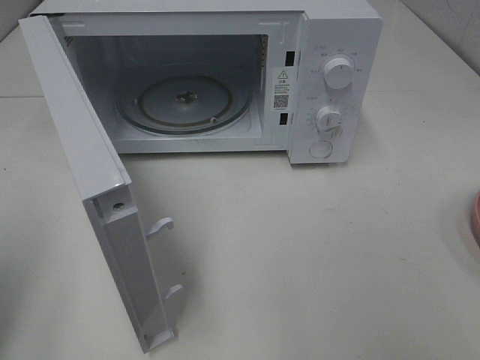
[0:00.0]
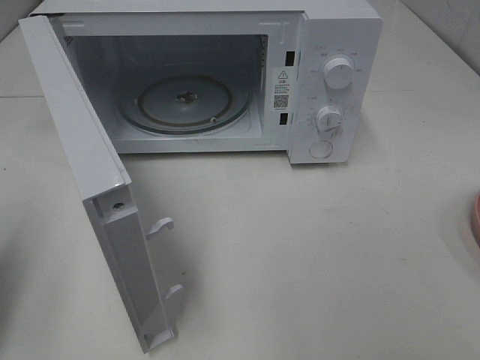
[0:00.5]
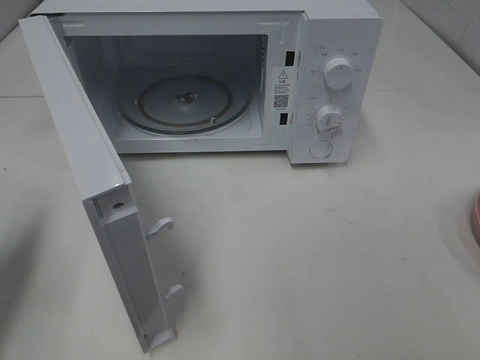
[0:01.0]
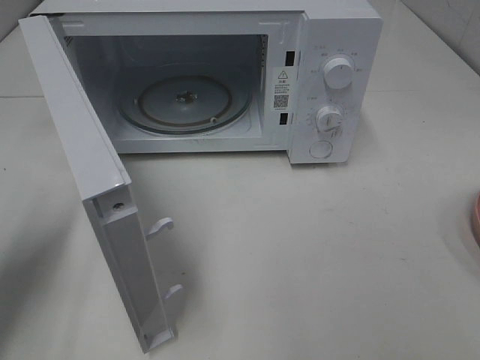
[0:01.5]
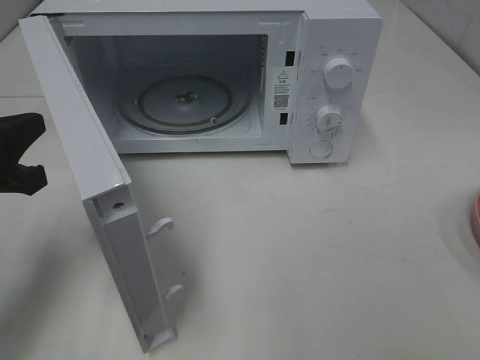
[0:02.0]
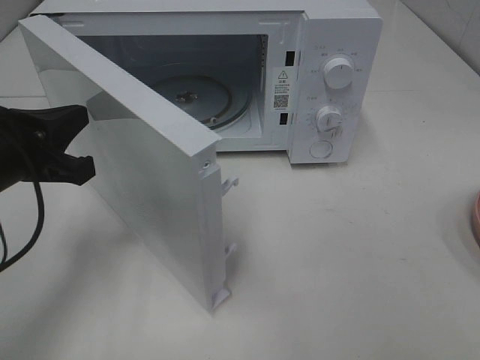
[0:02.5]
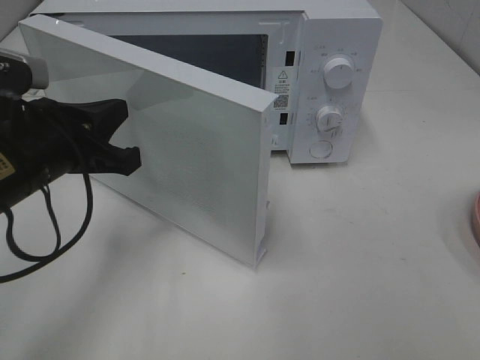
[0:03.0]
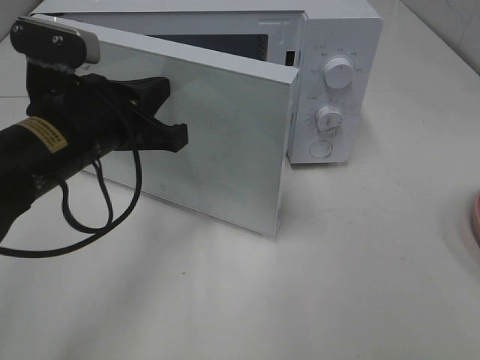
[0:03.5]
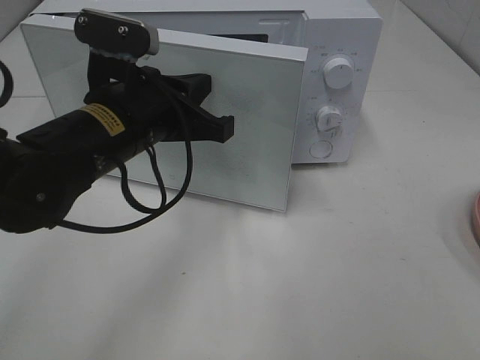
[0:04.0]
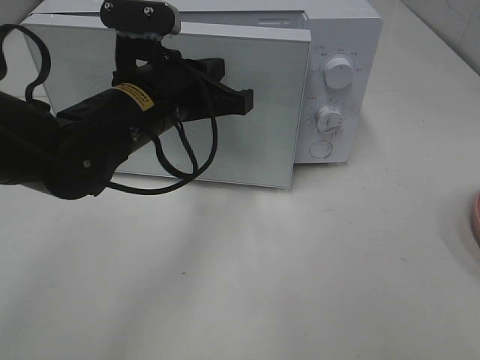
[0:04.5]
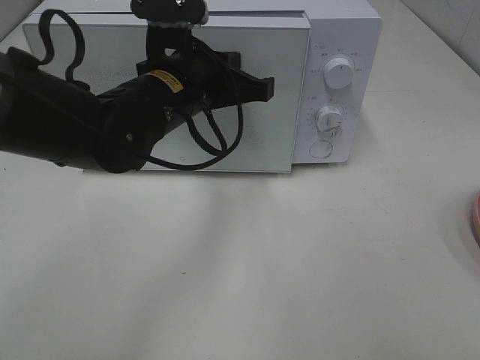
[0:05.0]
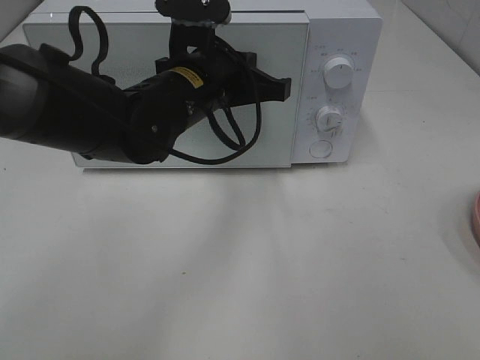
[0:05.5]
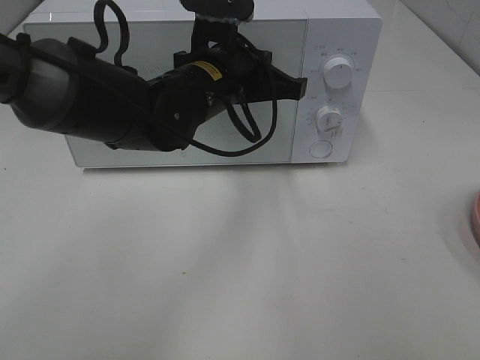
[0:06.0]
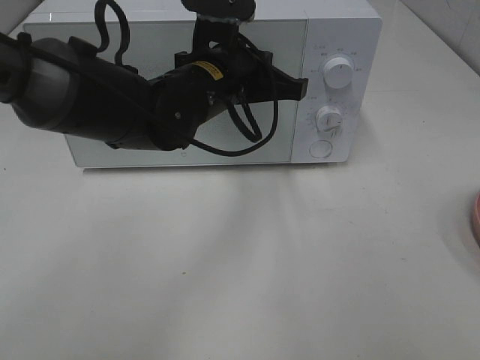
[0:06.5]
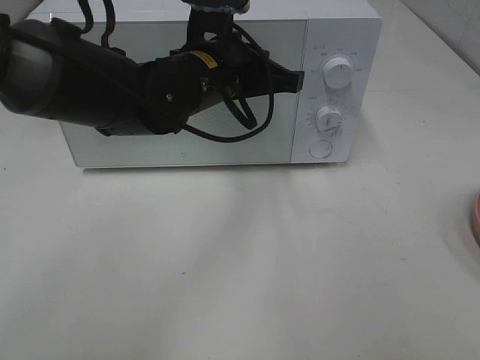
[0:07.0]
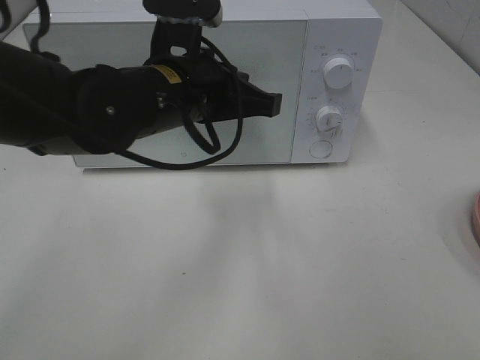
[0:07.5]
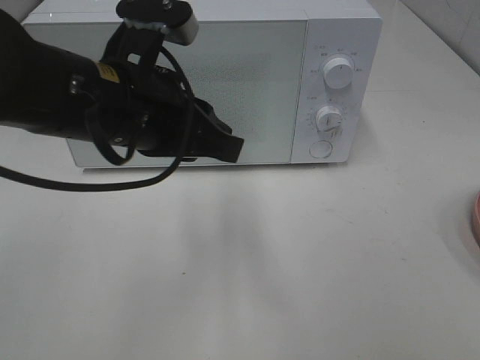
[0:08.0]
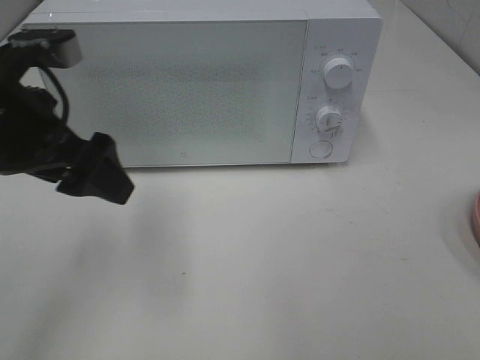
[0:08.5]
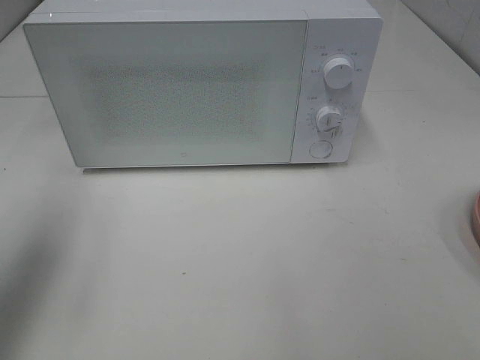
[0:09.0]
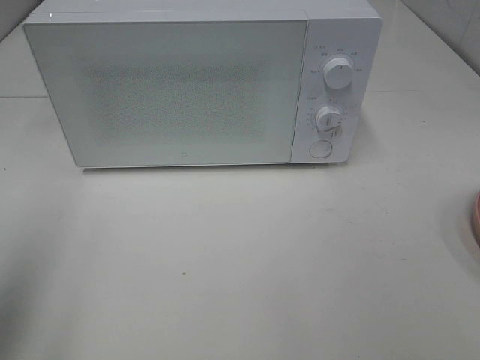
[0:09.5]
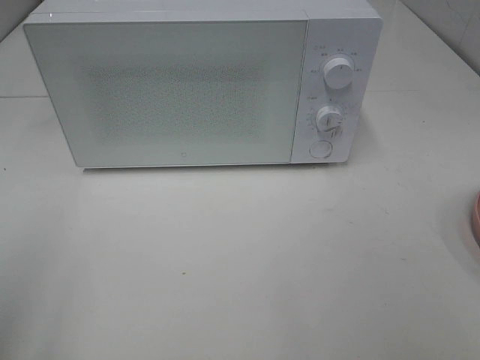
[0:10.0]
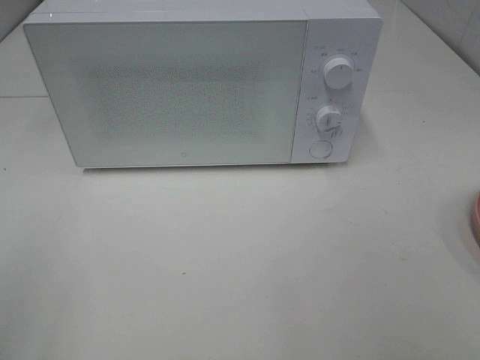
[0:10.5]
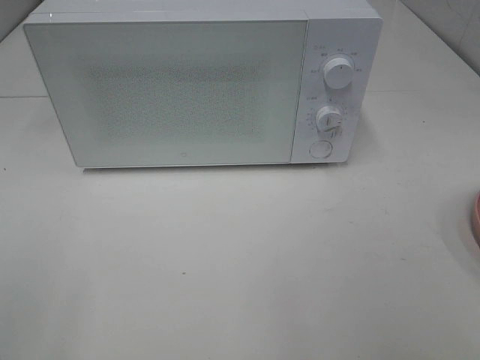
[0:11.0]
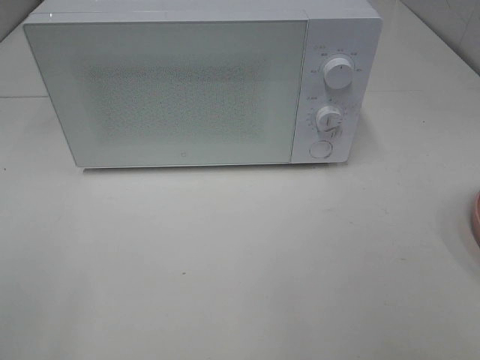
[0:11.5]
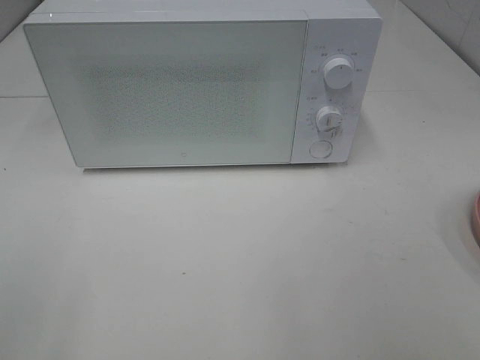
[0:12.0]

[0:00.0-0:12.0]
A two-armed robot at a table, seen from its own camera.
Task of the whole recording: Heat Sandwich.
Step, 0.0 to 7.0 s: Left hand: close the microwave door.
0.0 to 2.0 s: The left gripper is displaced forward, downward and to the right by approximately 15 cm.
2.0 to 4.0 s: The left gripper is displaced to the right by some 15 cm.
4.0 to 6.0 s: The left gripper shifts some 10 cm to the right and forward.
6.0 to 8.0 s: The left gripper heads backward and to the left, covering approximately 10 cm.
8.0 to 10.0 s: The left gripper travels to the left and backward by about 30 cm, and opens.

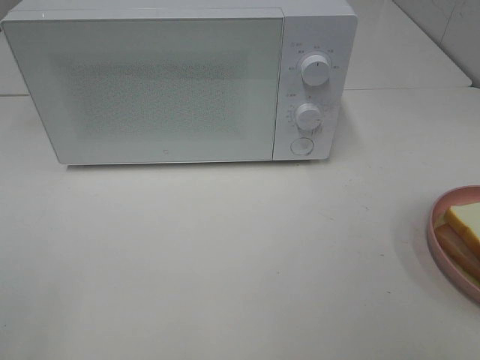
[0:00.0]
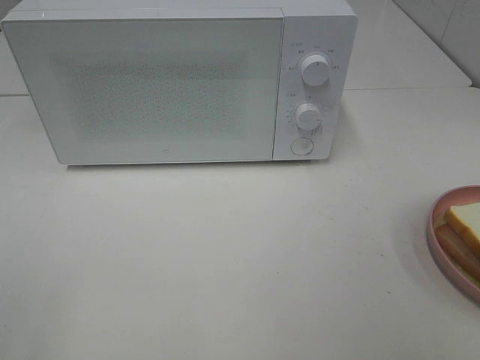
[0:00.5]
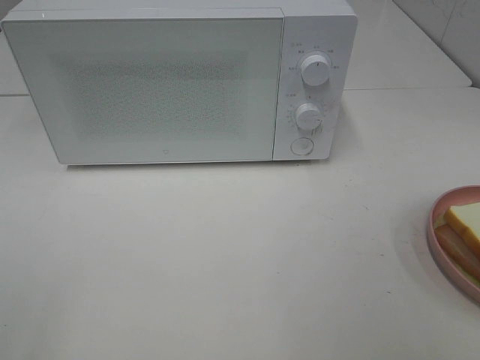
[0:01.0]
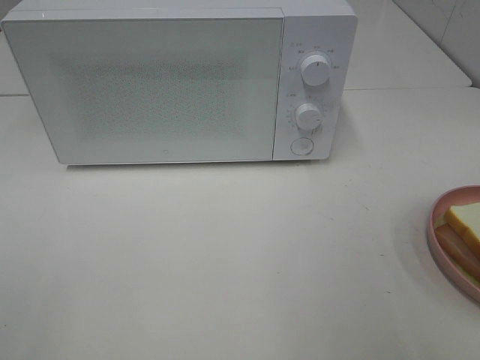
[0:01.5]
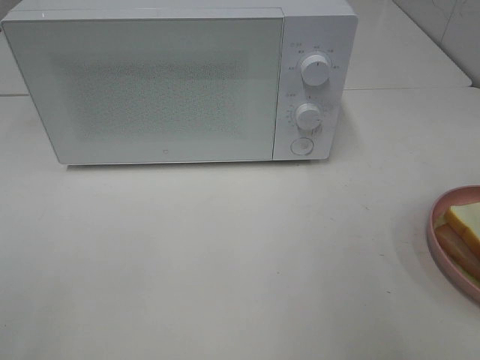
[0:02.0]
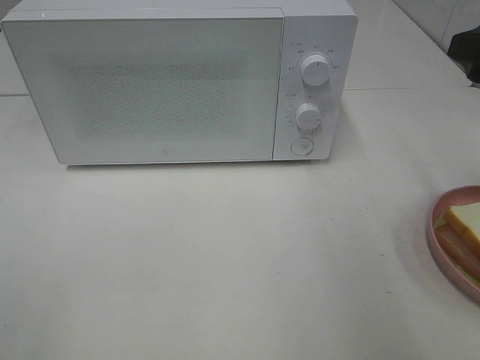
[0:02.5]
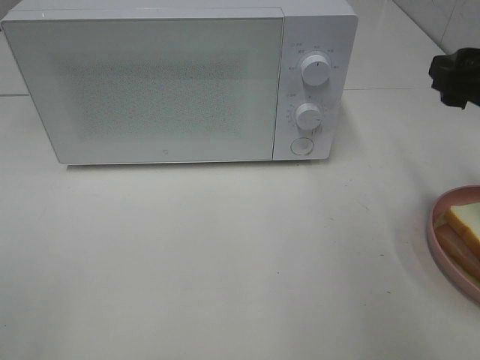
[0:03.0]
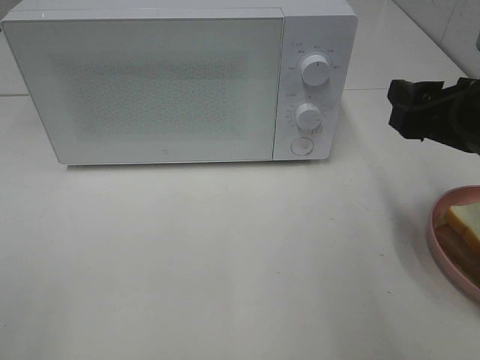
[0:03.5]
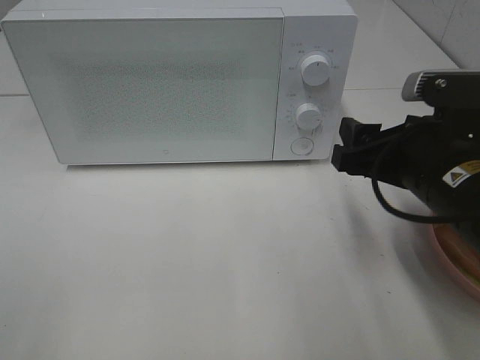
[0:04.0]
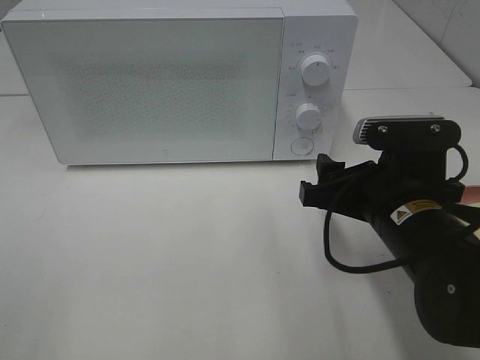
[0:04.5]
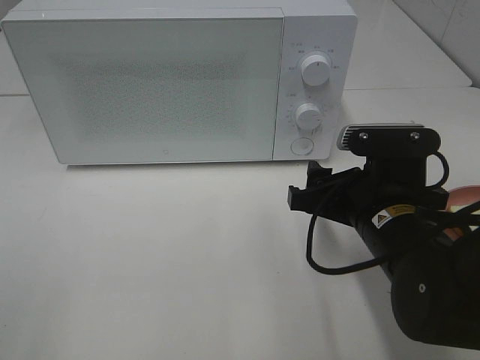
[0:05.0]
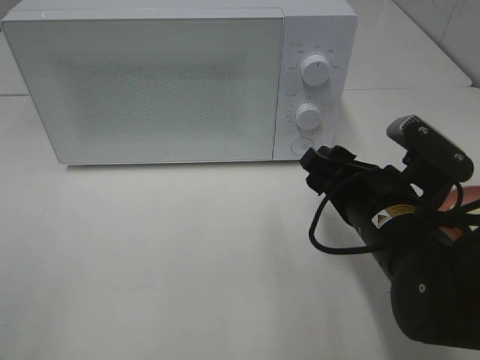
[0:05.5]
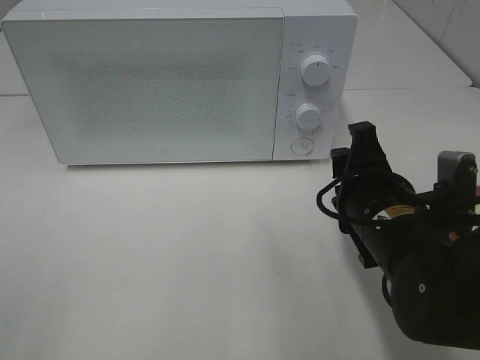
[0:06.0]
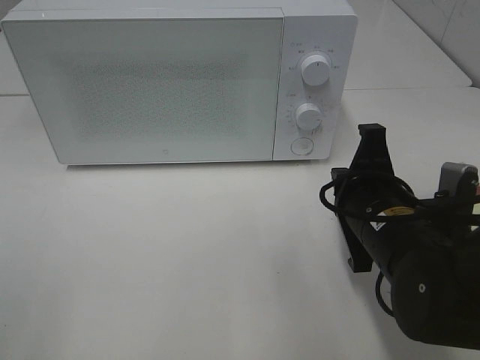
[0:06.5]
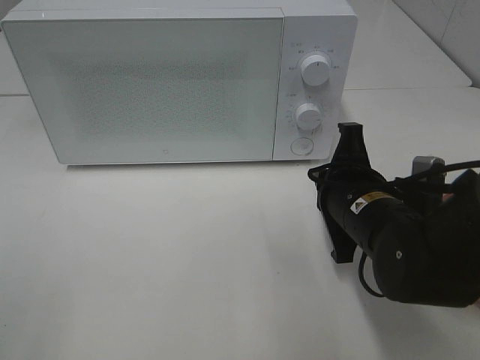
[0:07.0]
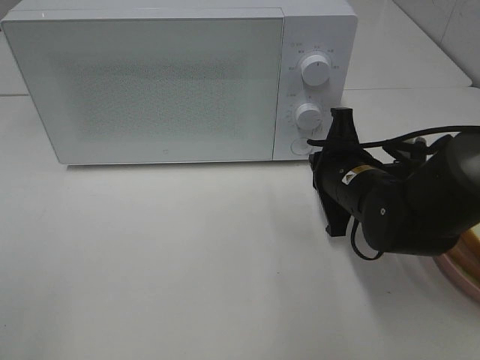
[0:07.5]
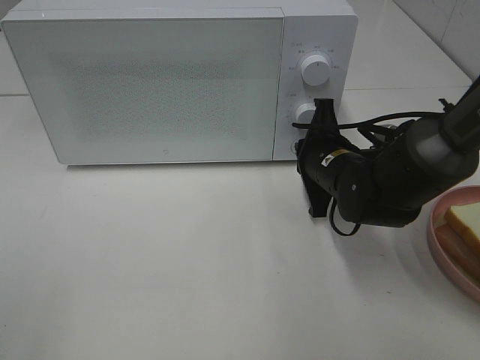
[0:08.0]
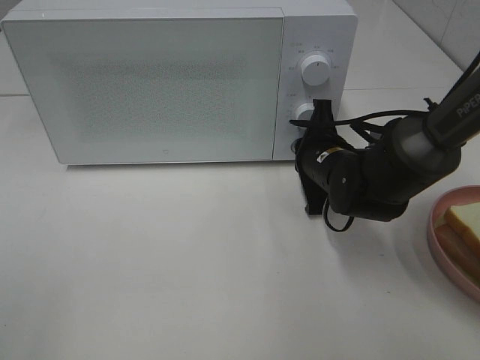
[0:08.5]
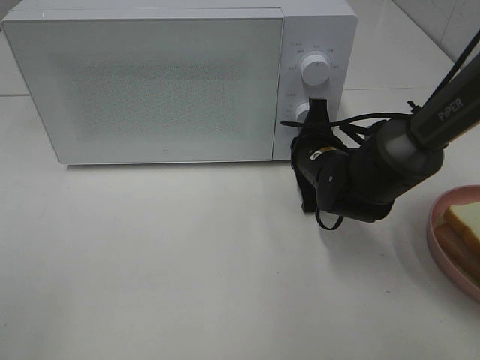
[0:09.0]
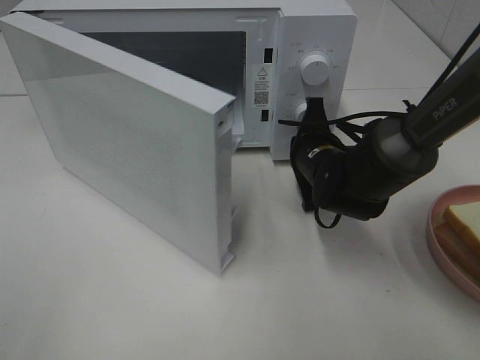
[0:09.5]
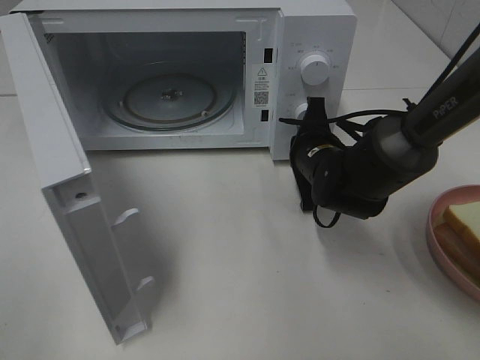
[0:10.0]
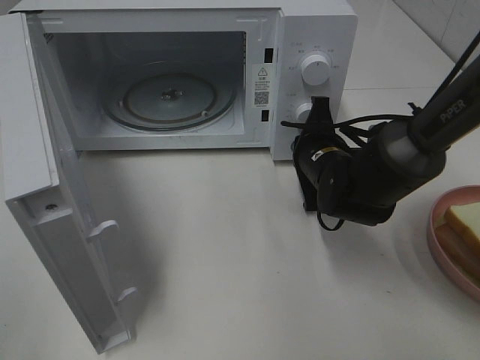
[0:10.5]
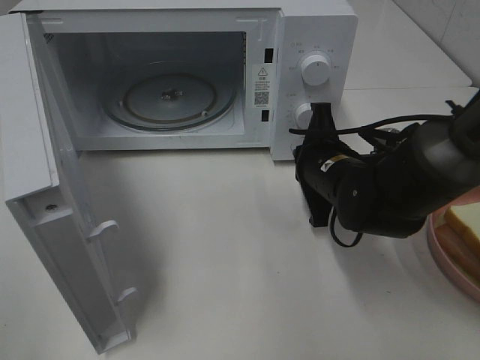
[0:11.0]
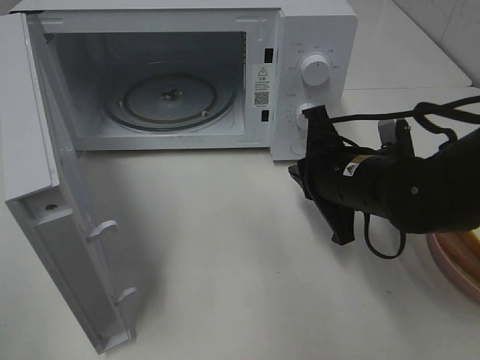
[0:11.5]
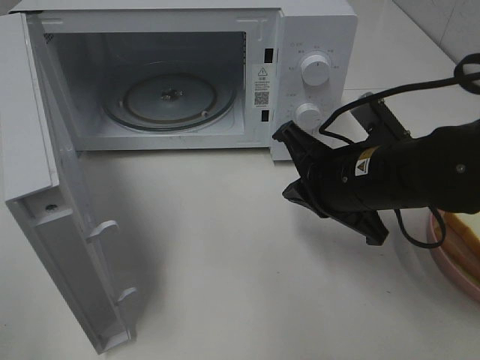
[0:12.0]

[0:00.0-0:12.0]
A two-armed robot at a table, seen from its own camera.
Task of the whole recording: Heat Sandwich.
Step, 0.0 to 10.5 s: Right hand: press the switch.
2.0 to 4.0 s: The right gripper goes about 20 cm downward, to the left and forward.
4.0 to 6.0 s: The right gripper changes place by about 5 cm.
6.0 to 8.0 s: The right gripper goes roughly 10 cm forward, and closes up.
10.0 to 12.0 s: The right gripper shifts approximately 15 cm backward and upward.

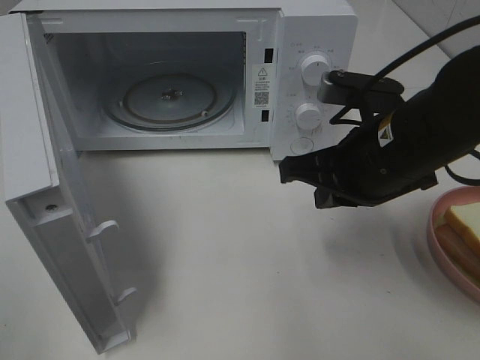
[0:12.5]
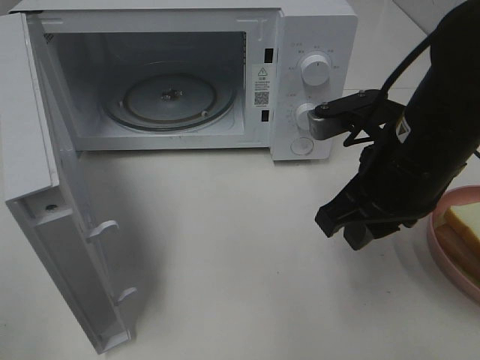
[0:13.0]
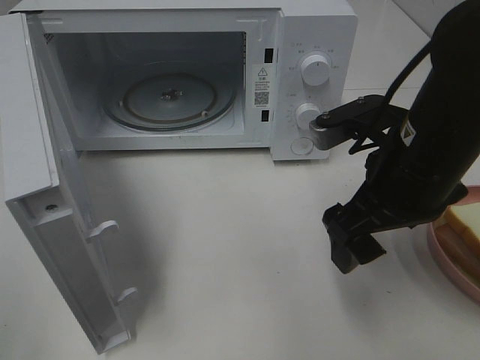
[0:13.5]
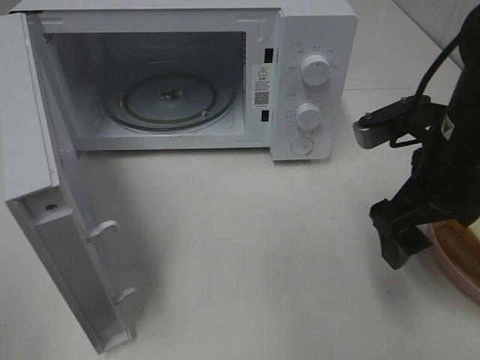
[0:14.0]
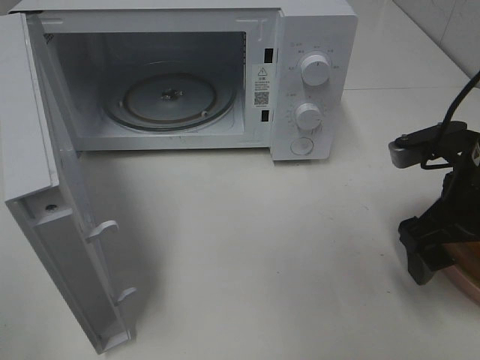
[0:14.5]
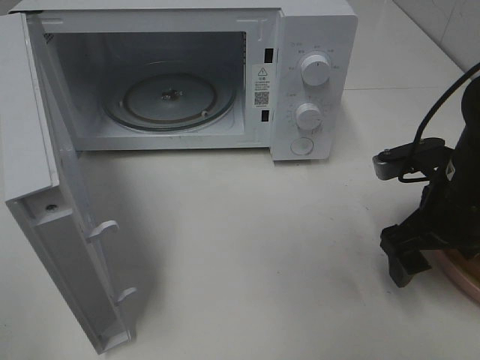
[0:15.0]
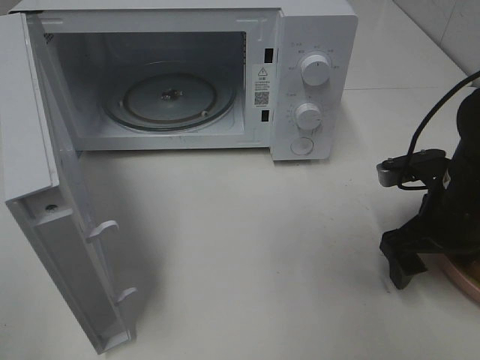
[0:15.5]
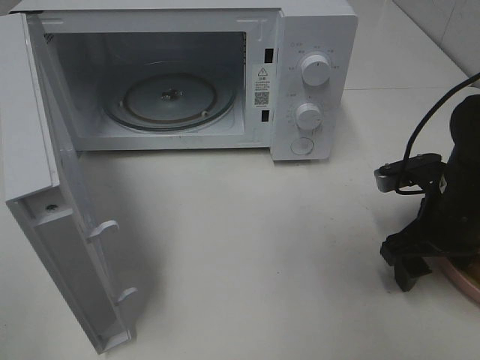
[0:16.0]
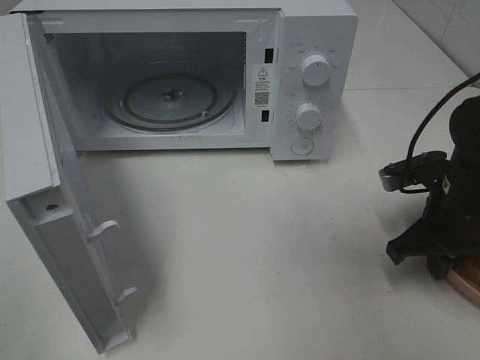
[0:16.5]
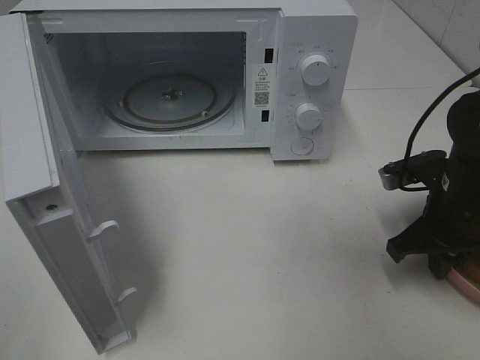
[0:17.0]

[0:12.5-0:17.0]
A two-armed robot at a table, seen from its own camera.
Task of the whole recording: Heat Sandwich.
Step, 12.5 to 17.0 s: Right hand: grab the plate with the sandwich.
12.5 to 14.5 s: The right gripper is displaced to the right by about 10 cm, and opens its fingers.
14.5 to 17.0 s: The right gripper goes approximately 5 cm downward, and closes.
